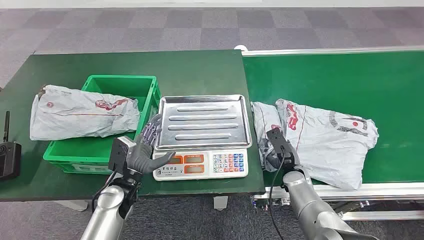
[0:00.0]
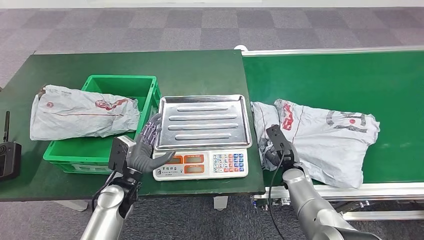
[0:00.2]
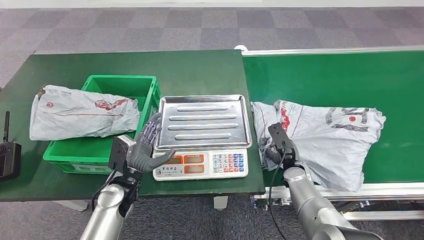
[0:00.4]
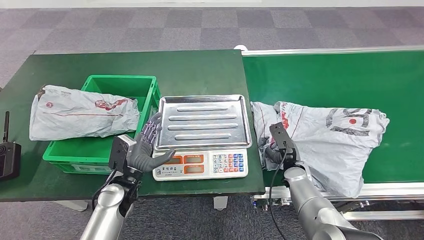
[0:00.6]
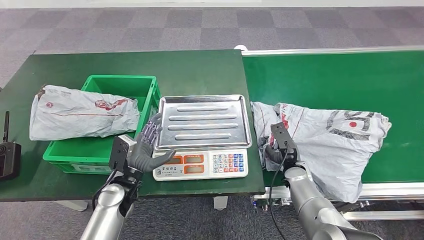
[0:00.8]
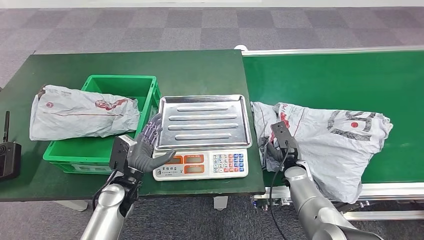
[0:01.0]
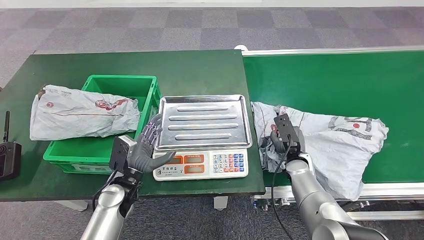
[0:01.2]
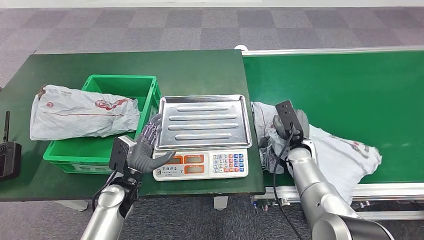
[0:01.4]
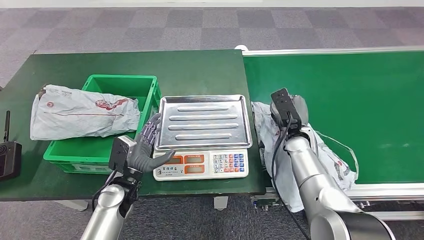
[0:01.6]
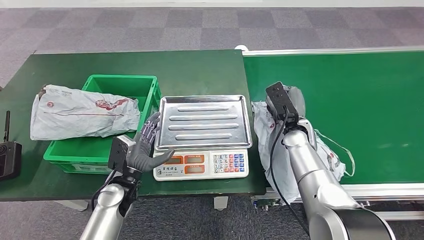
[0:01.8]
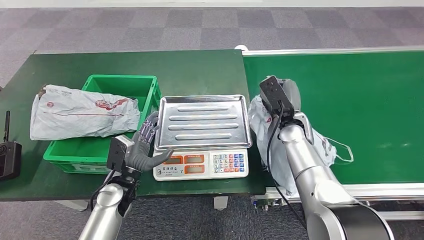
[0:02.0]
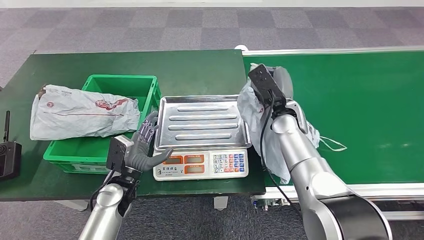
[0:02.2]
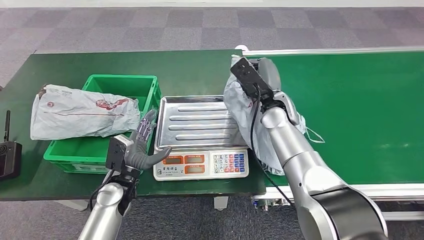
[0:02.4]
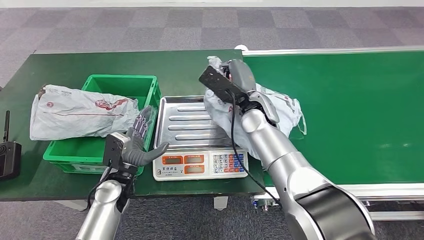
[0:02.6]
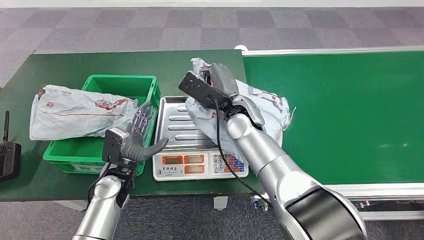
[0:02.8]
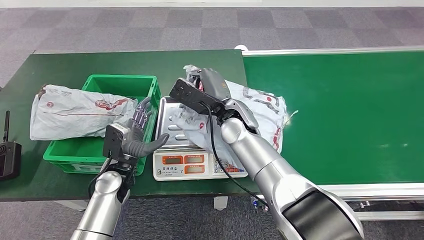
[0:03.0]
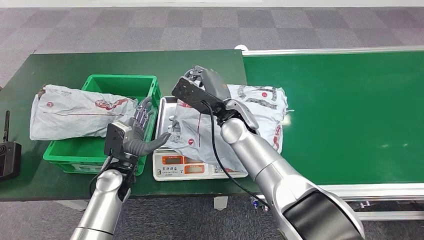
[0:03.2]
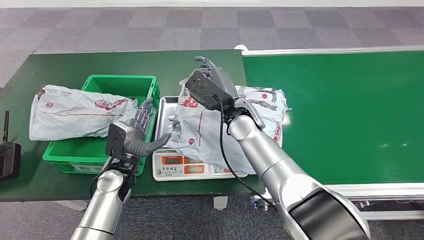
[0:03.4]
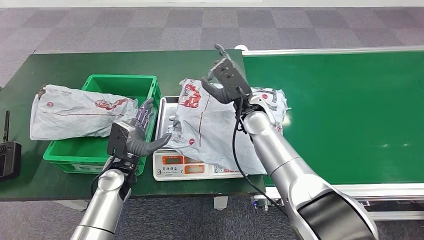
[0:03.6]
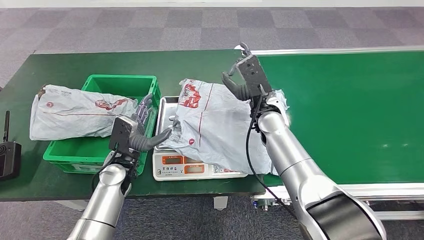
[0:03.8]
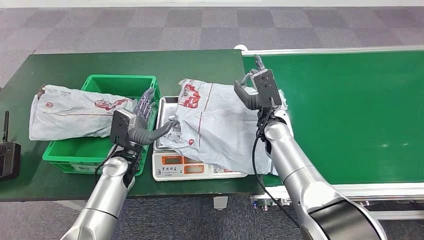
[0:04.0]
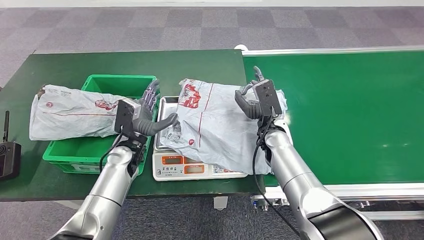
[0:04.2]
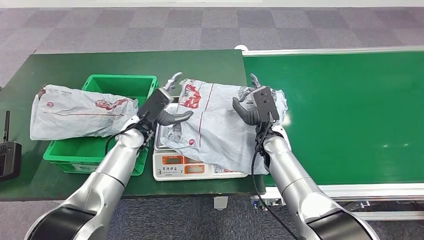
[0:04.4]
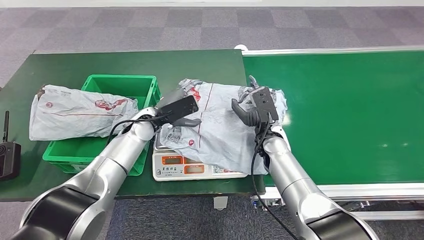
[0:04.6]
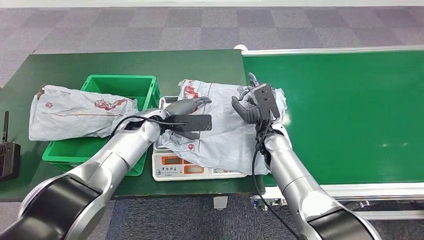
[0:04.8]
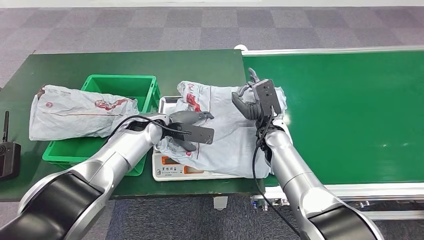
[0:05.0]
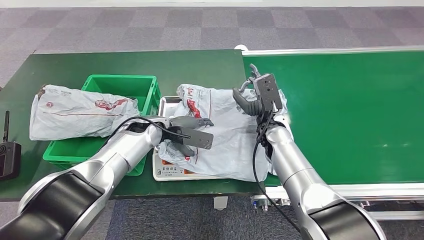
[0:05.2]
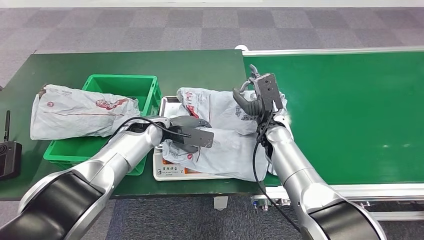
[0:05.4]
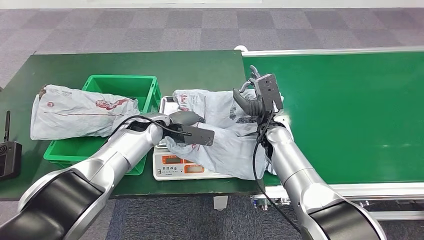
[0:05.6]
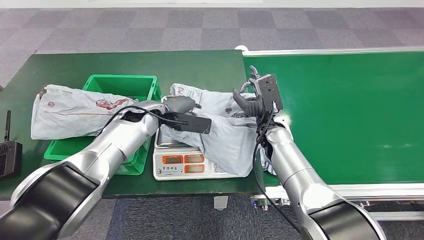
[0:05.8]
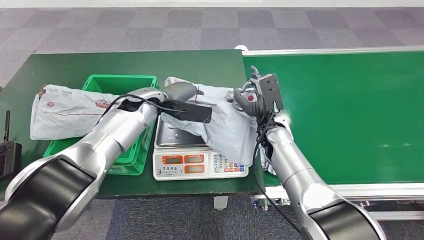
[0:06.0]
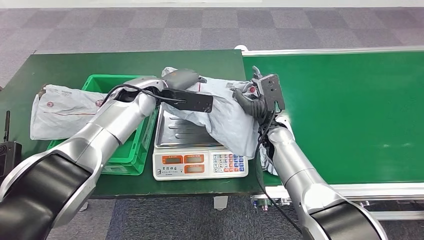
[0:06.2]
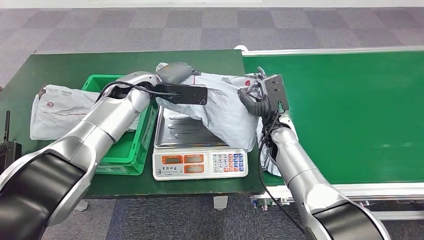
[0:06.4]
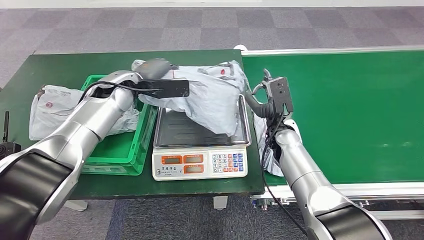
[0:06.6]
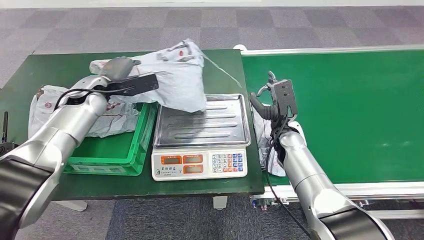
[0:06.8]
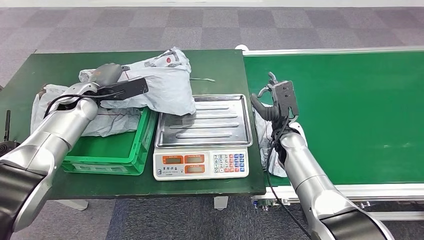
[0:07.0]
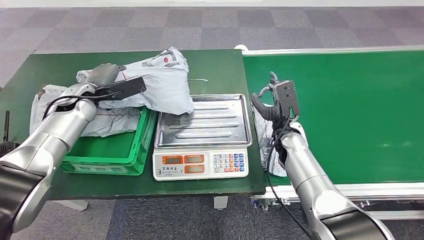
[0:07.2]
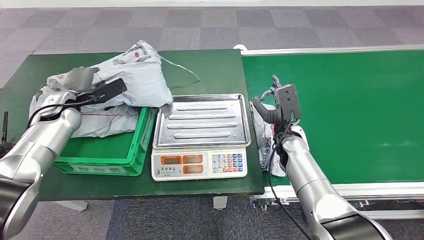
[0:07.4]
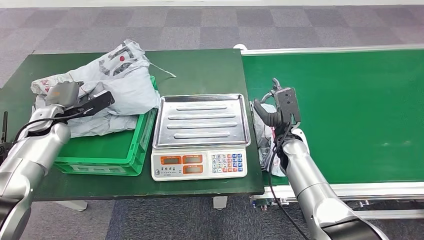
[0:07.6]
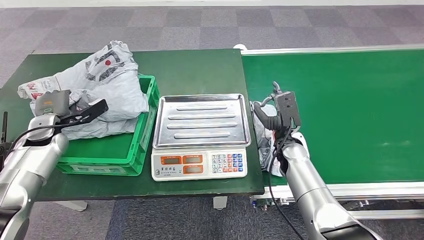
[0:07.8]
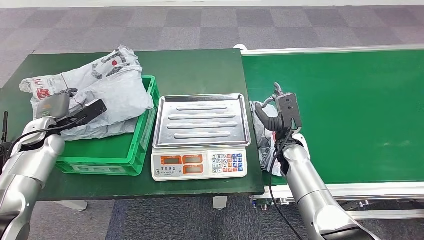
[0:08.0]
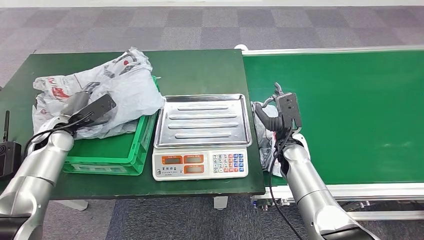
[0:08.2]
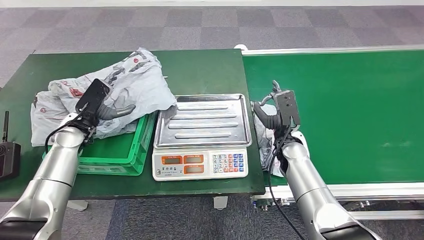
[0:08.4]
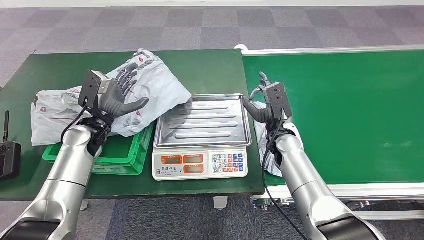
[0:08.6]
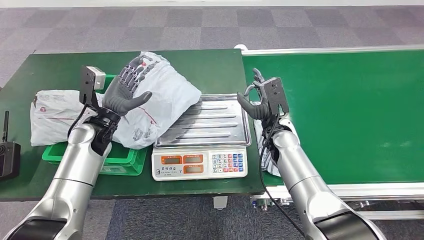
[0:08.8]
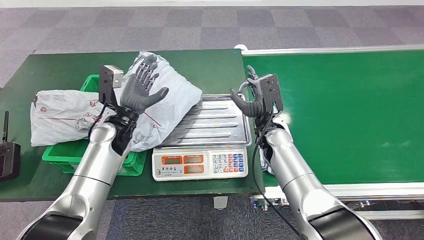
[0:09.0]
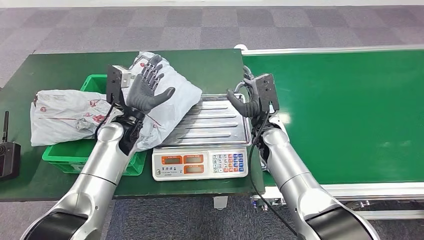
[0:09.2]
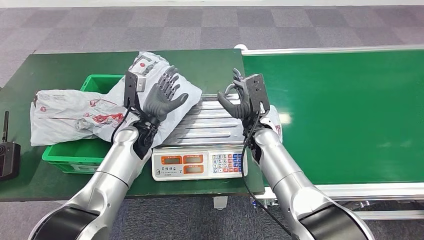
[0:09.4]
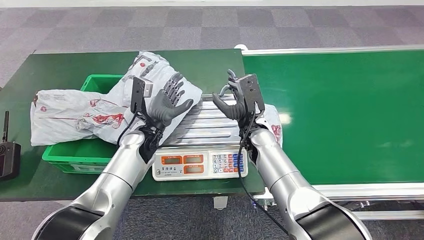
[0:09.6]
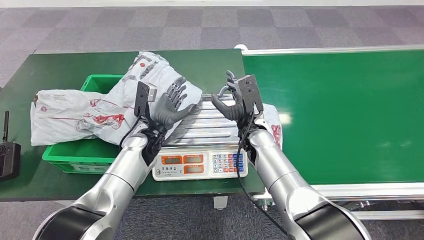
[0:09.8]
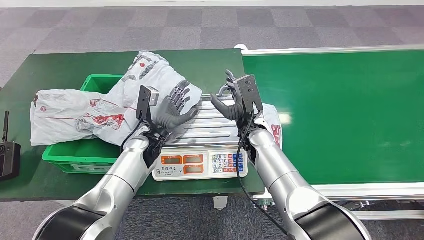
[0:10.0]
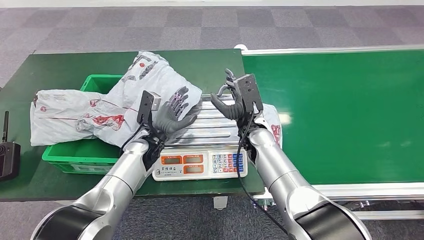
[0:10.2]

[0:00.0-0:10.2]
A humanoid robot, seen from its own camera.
Step, 0:00.0 to 0:02.2: Pick up the package from the conveyor belt.
Step, 0:02.6 to 0:03.8: Place the package onto the inbound machine.
Step, 0:04.2 to 0:06.4: Pick up the package from the inbound machine.
Step, 0:06.6 to 0:10.2: Place the package into the parcel locker.
